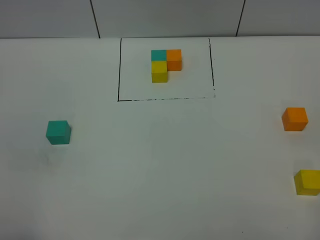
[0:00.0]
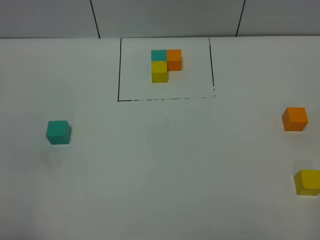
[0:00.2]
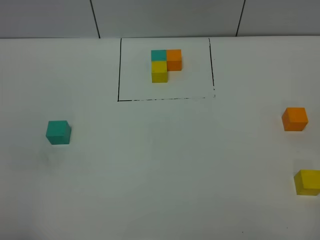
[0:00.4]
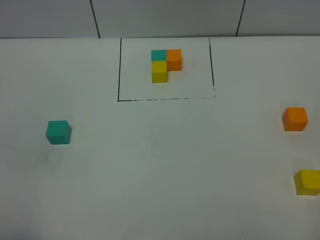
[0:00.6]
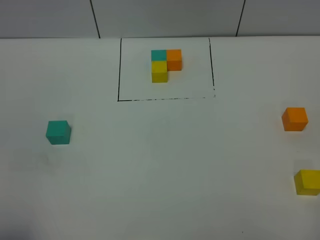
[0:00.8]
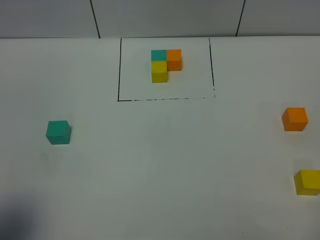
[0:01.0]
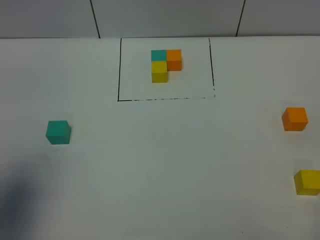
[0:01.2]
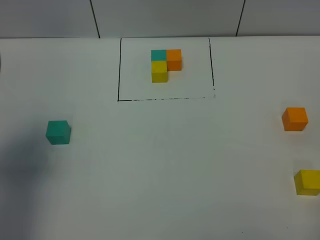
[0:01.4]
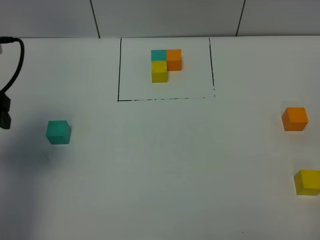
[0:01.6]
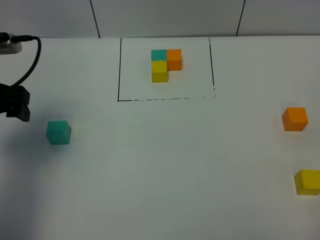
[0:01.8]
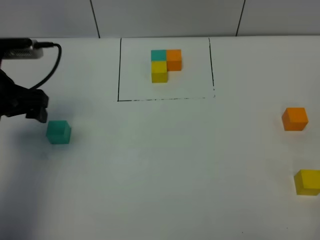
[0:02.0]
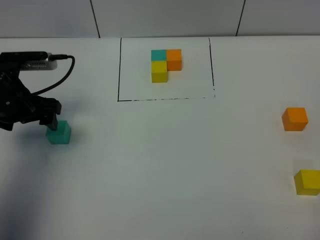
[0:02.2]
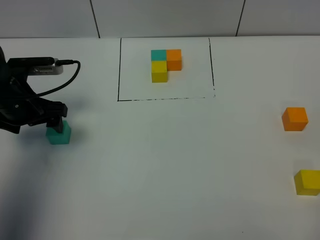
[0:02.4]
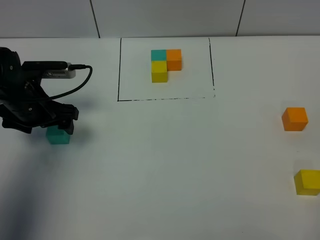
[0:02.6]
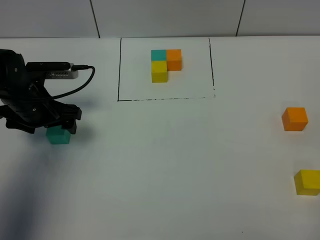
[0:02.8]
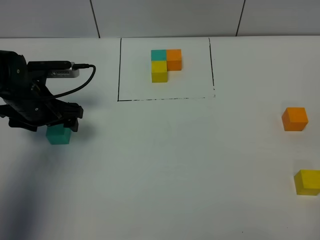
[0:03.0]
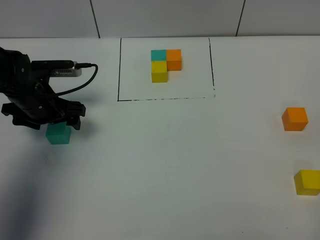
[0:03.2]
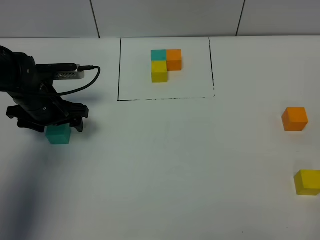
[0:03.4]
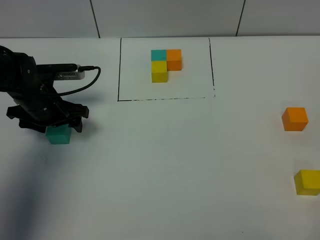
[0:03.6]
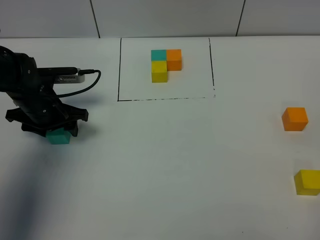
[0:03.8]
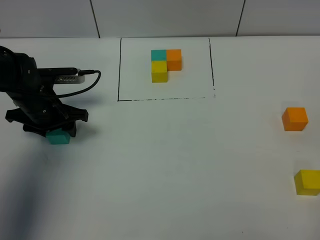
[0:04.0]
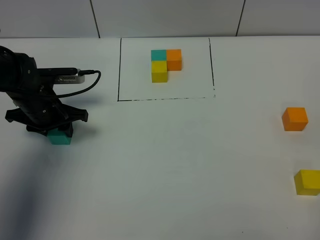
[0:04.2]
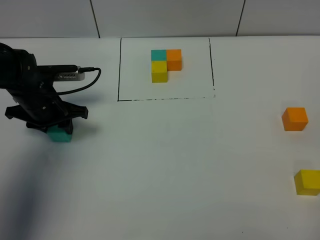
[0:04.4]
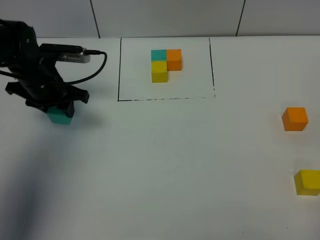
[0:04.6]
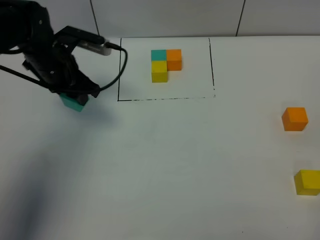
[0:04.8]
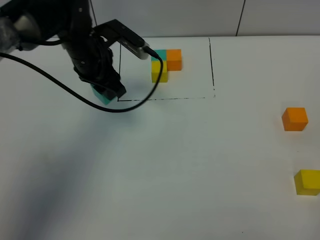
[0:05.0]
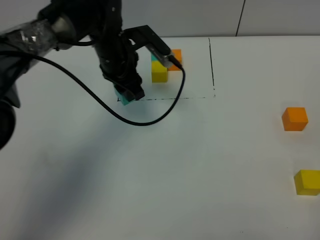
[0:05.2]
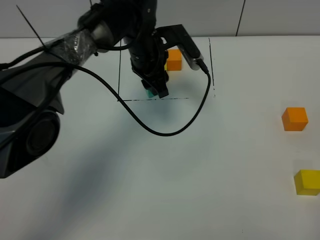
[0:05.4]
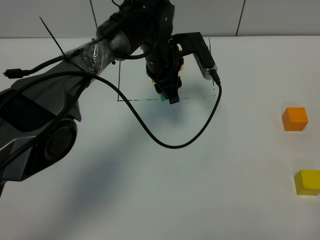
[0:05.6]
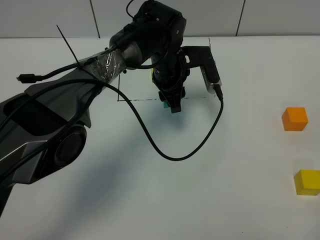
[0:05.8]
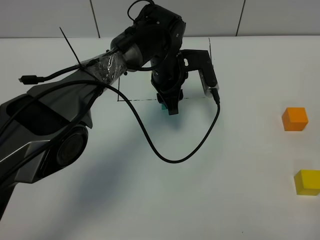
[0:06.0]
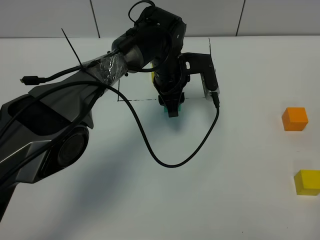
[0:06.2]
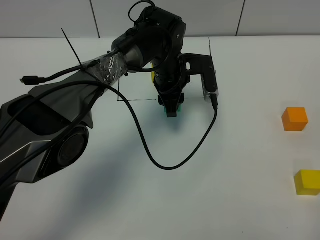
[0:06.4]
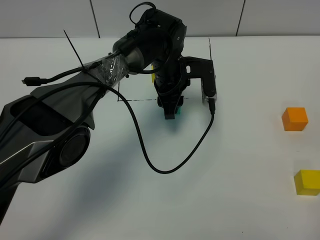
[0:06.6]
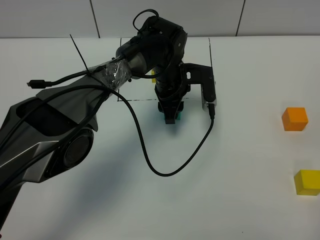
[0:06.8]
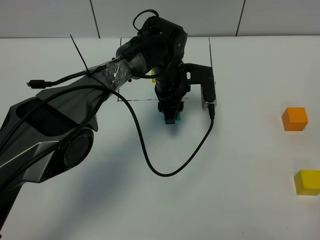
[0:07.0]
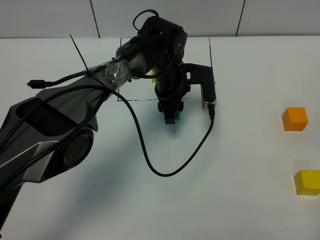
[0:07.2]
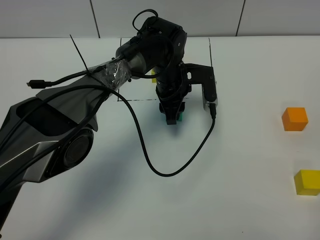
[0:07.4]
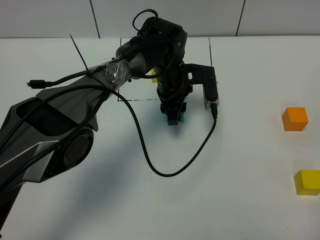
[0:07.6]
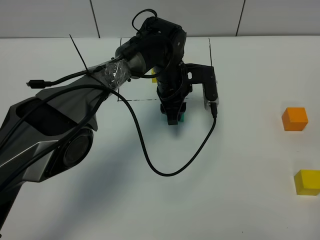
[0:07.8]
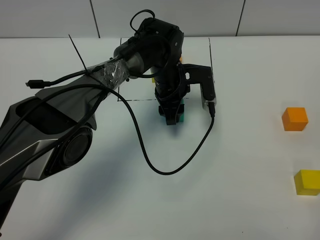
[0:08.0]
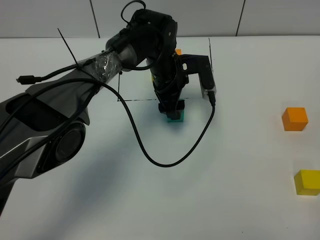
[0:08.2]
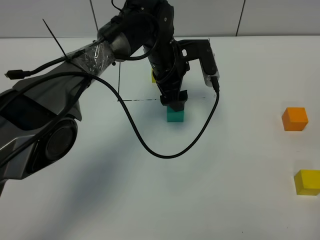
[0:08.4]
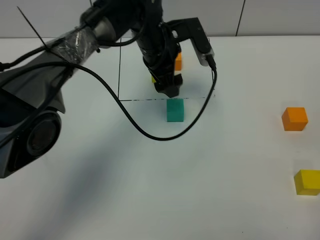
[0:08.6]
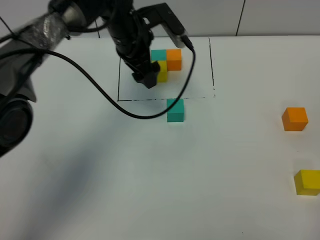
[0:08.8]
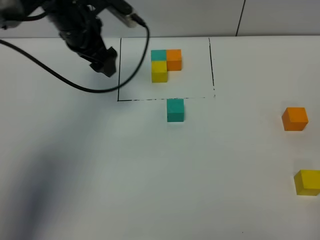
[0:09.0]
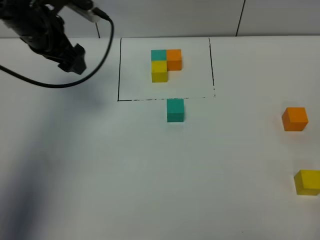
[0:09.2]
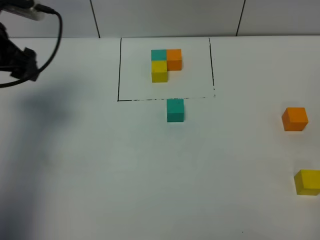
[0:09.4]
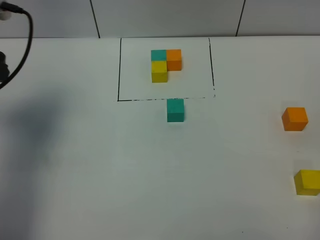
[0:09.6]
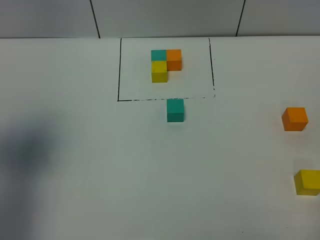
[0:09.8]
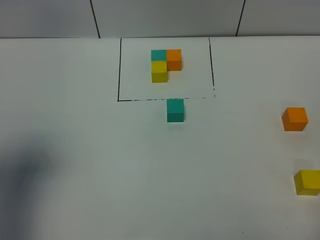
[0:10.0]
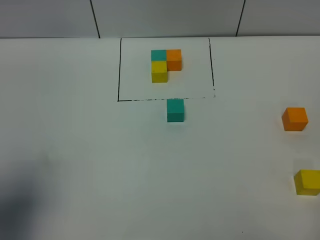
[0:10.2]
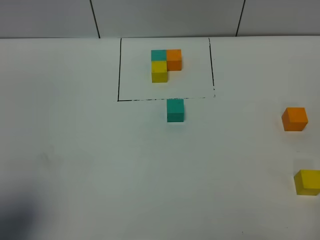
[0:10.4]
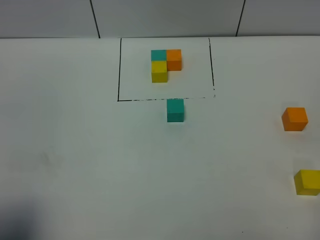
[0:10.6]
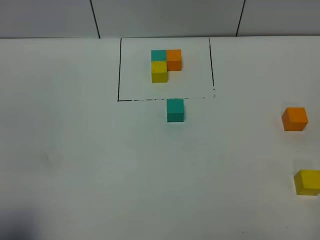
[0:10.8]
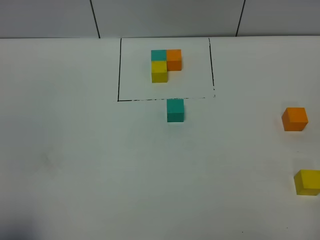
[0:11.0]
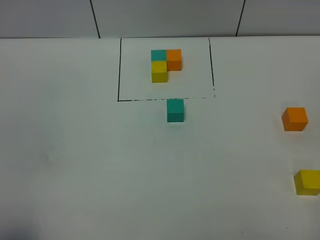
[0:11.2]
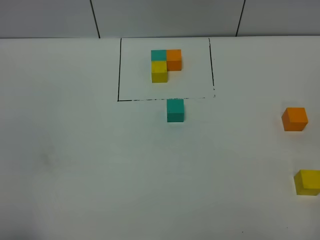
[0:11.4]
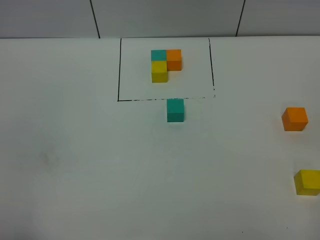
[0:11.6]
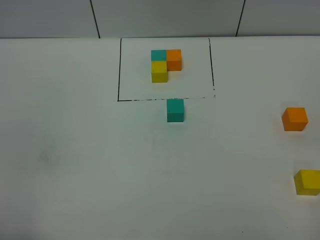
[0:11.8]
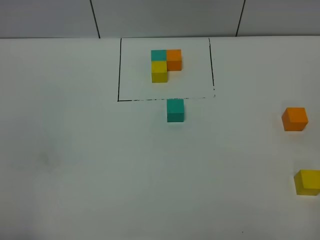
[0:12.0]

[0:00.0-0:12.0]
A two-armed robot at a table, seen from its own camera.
Task of the whole recording: According to the building block template in front, assemble the scattered blocks together.
Step, 0:00.0 to 0:08.0: Put the green build block in the center of the table.
0:00.0 to 0:01.6: The left gripper is displaced forward by roughly 25 cm.
0:01.6 to 0:03.0: The left gripper is displaced downward, forward and to the right by roughly 15 cm.
0:03.0 to 0:04.4: The left gripper closes.
0:04.4 to 0:06.0: The left gripper moves to the right, roughly 25 cm.
0:06.0 to 0:07.6: The grippers stay close to where they were, moving slightly.
0:07.6 to 0:09.0: The left gripper travels to the left and upward by approximately 25 cm, and opens up.
0:09.0 to 0:10.4: The left gripper travels backward by about 35 cm.
0:10.4 to 0:12.0: The left gripper is displaced backward and downward by roughly 10 cm.

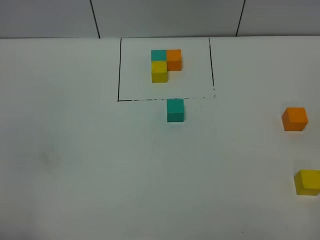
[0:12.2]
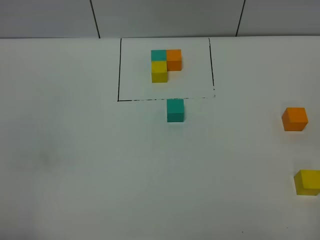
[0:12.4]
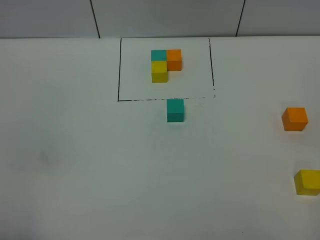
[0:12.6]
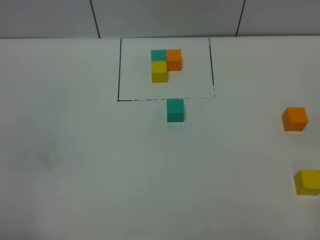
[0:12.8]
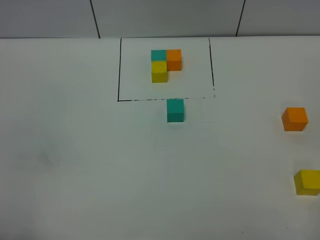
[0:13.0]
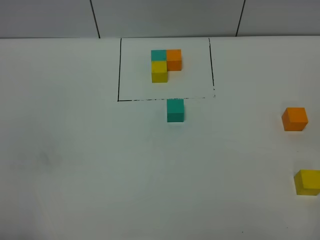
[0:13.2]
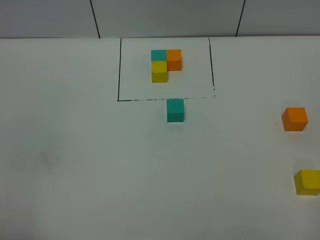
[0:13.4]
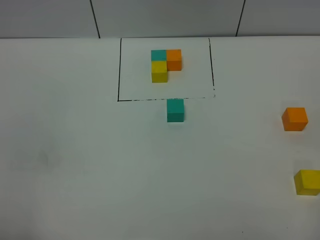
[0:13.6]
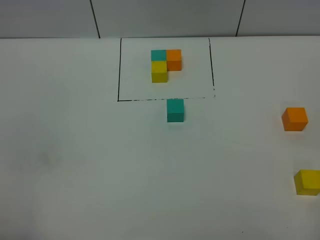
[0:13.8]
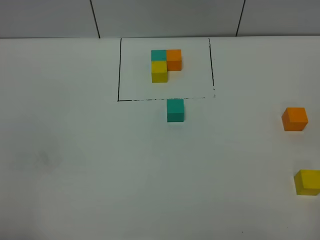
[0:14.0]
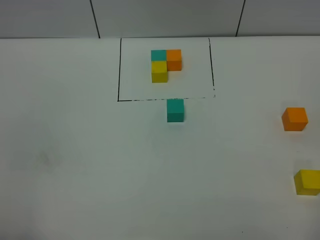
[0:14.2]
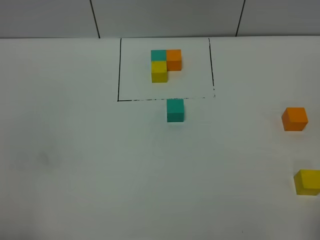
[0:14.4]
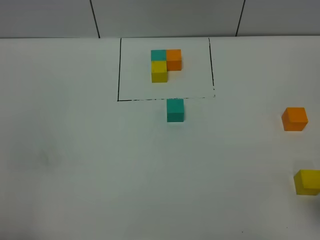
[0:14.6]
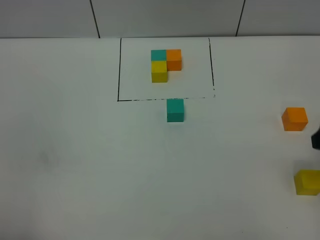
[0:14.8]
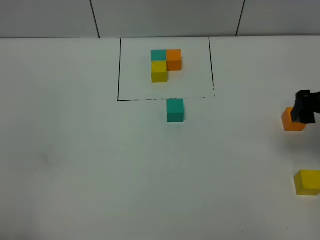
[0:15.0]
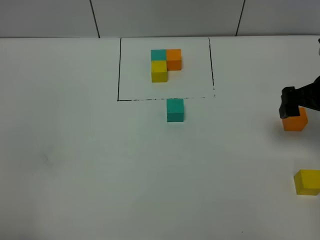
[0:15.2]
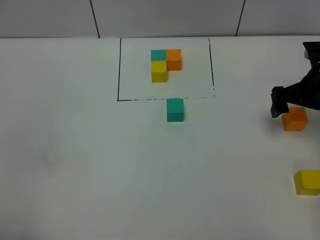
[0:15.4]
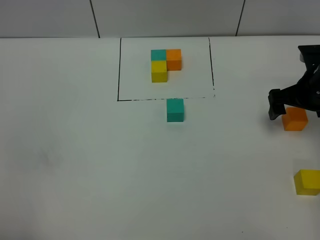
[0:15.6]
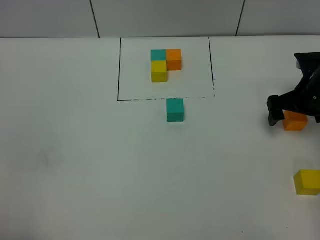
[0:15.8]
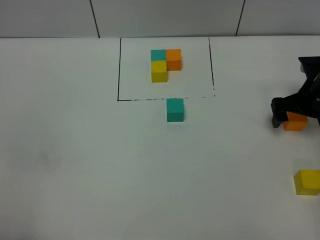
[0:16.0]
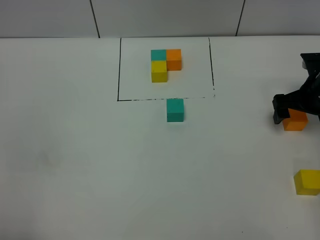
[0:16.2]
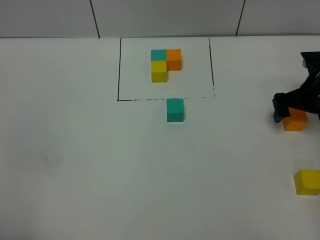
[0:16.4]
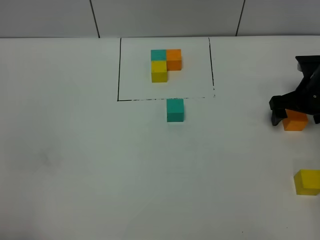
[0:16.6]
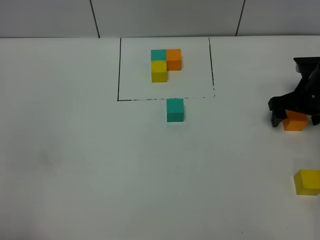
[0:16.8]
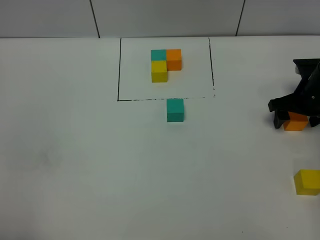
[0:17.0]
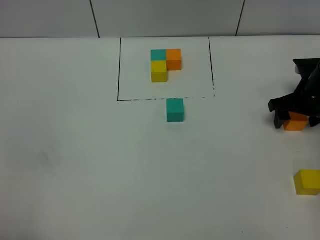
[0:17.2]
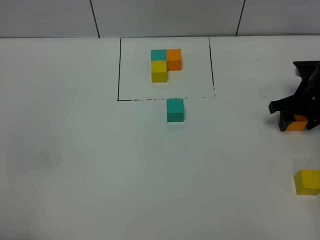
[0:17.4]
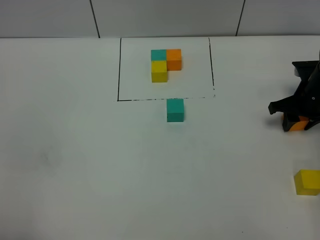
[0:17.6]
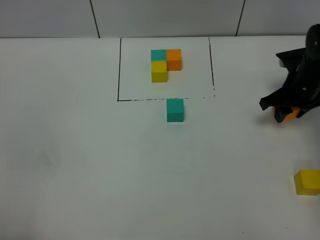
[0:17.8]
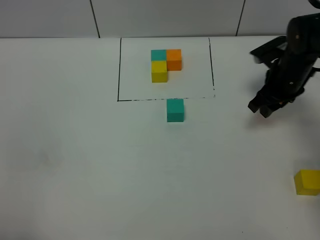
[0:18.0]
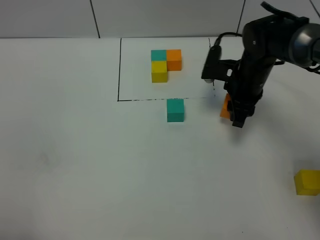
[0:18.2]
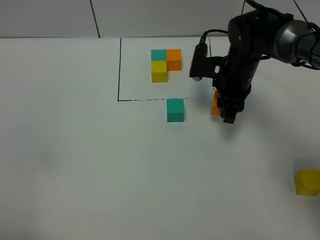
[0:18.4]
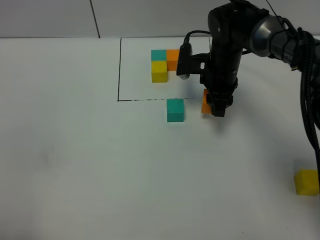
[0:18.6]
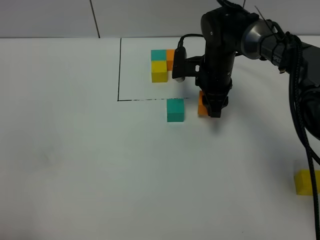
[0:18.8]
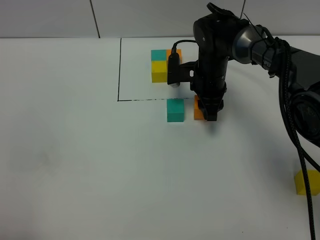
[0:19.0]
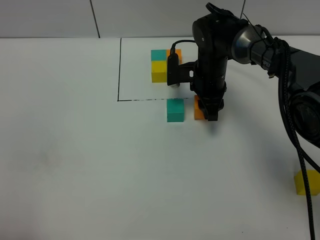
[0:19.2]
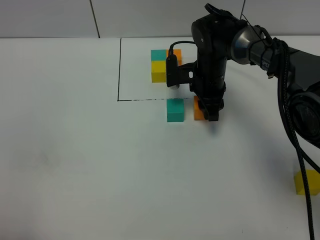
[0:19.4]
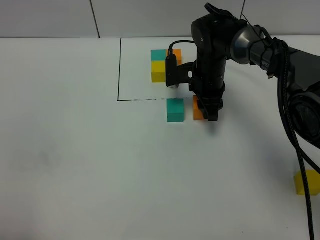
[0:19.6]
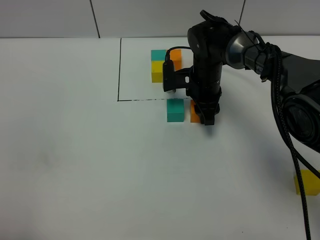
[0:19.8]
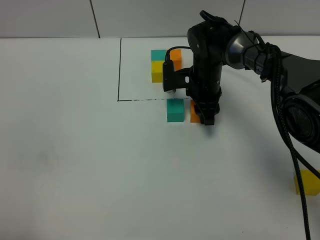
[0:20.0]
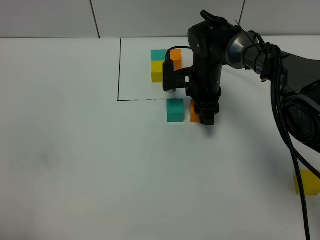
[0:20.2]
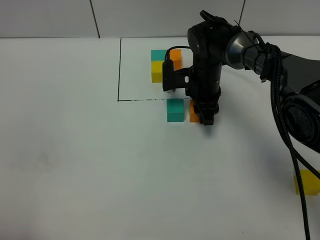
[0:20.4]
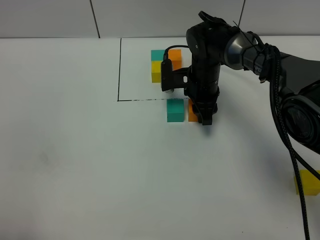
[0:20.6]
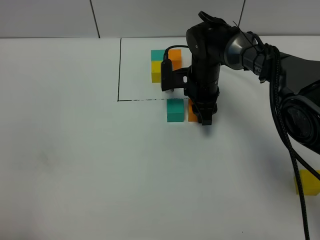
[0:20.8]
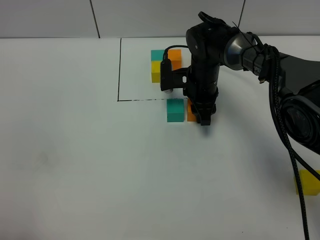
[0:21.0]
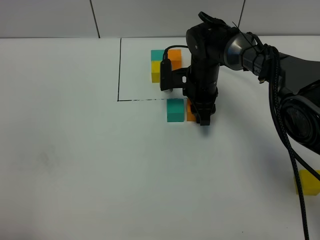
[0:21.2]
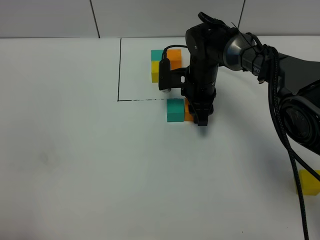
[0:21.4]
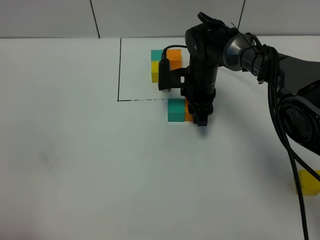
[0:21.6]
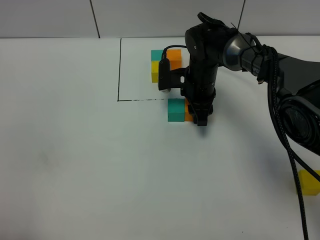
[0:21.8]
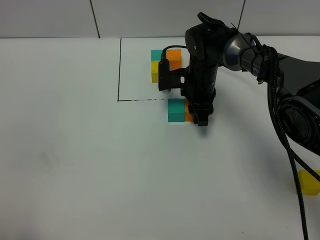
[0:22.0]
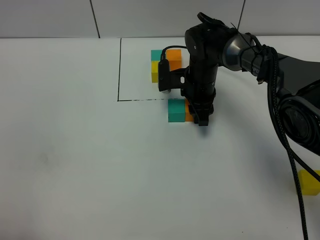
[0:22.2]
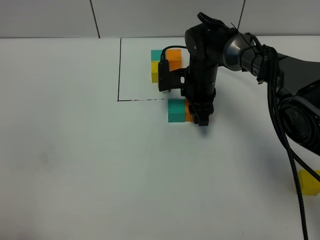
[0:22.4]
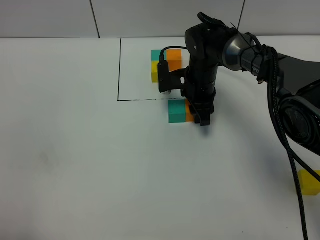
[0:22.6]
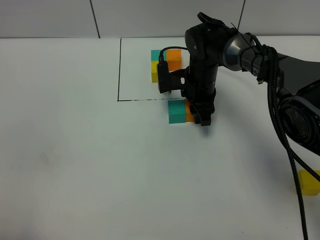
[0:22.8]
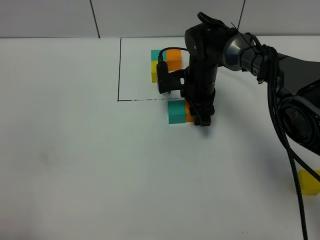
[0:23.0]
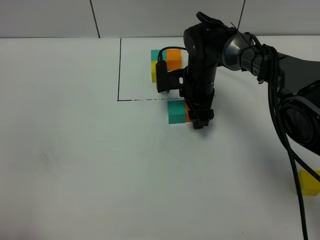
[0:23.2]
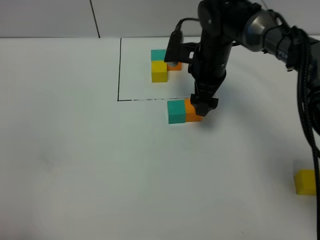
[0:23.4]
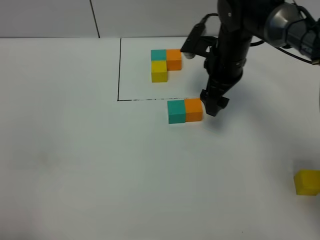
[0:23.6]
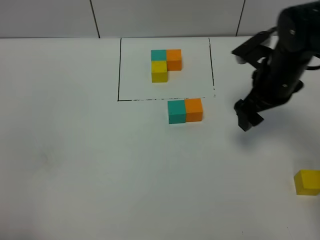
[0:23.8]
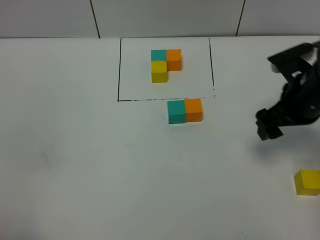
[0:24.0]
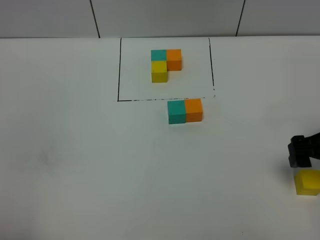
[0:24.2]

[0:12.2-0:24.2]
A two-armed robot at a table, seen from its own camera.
Task of the whole recording: According to the building block template in front, assemble the scattered blocks together.
Step, 0:12.2 to 0:22.8: Put the orange build block on the right of the green build block.
0:12.2 to 0:13.8: Both grippers stay about where they are.
0:13.8 to 0:15.2: The right gripper goes about 30 cm forward.
0:15.2 to 0:16.6: The right gripper travels downward and forward by roughly 10 cm.
0:16.6 to 0:18.2: The right gripper goes roughly 15 cm to the left, and closes its fingers.
0:18.2 to 0:19.8: The right gripper goes some 5 cm to the left.
0:19.8 to 0:22.6: Neither gripper changes place.
0:22.6 to 0:24.2: The right gripper moves to the right and backward, roughly 30 cm, and opens its fingers.
